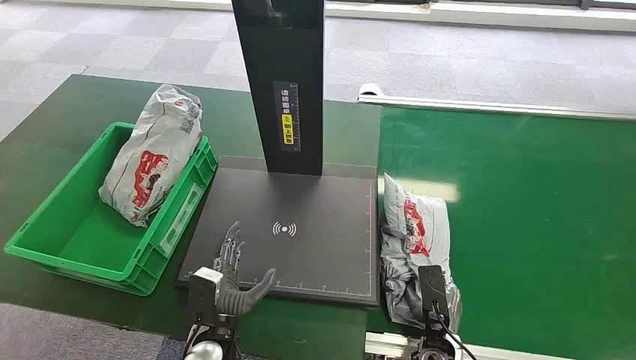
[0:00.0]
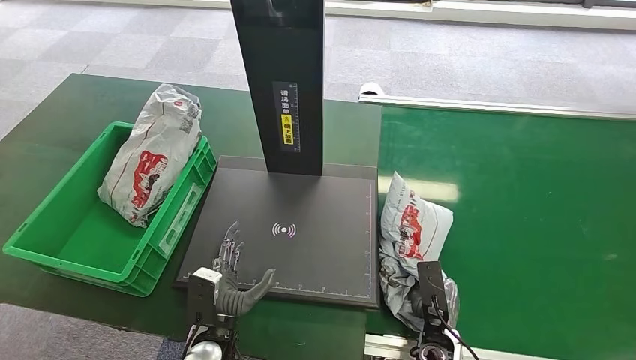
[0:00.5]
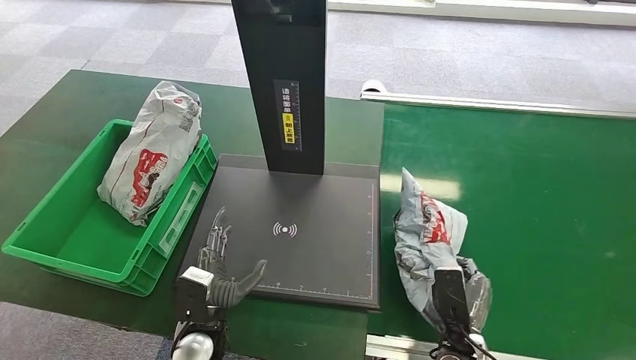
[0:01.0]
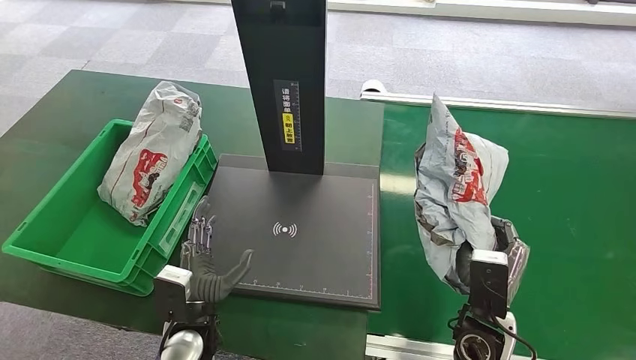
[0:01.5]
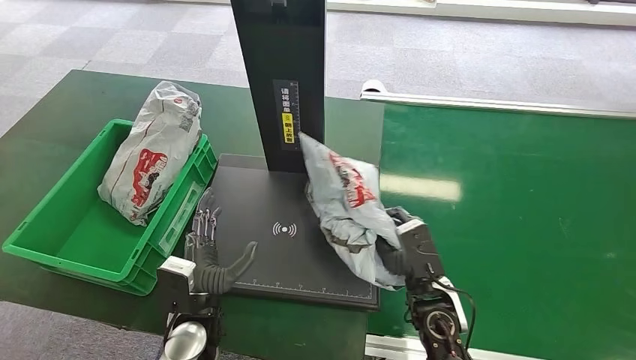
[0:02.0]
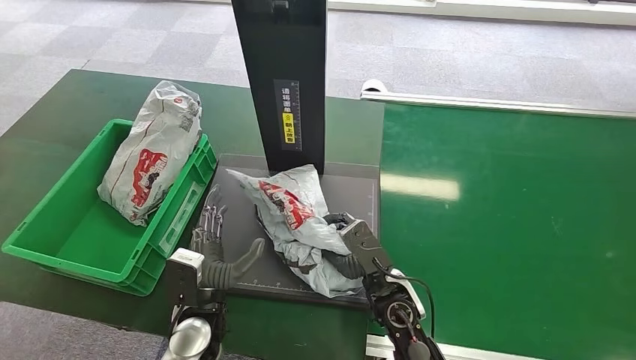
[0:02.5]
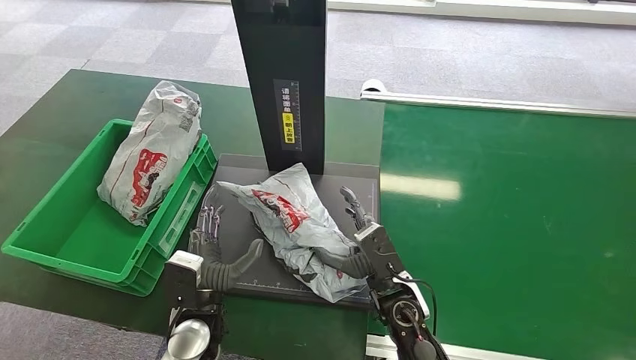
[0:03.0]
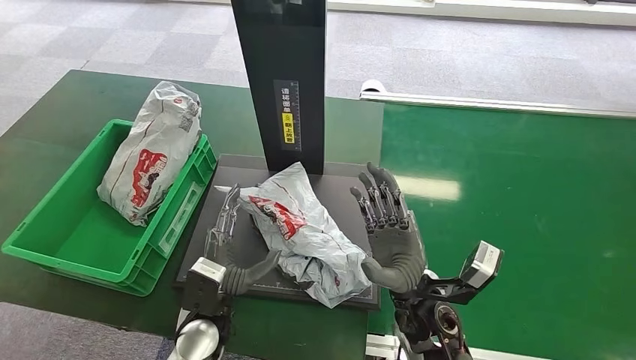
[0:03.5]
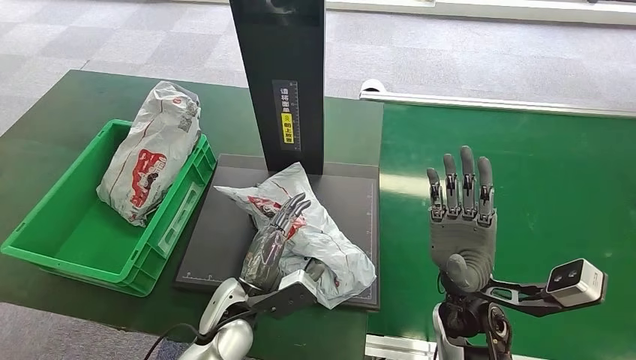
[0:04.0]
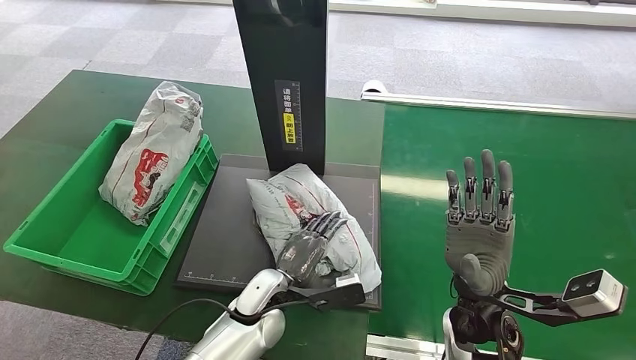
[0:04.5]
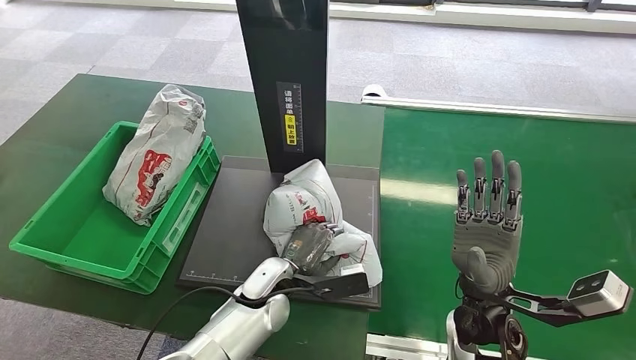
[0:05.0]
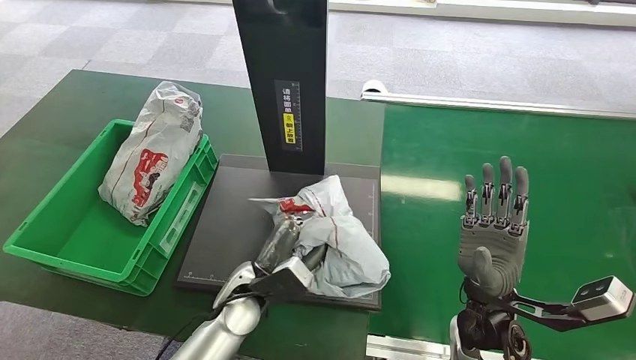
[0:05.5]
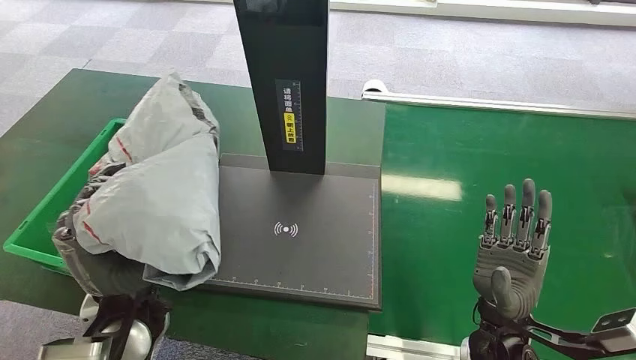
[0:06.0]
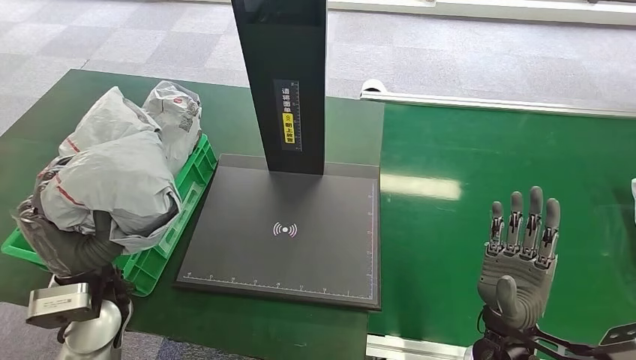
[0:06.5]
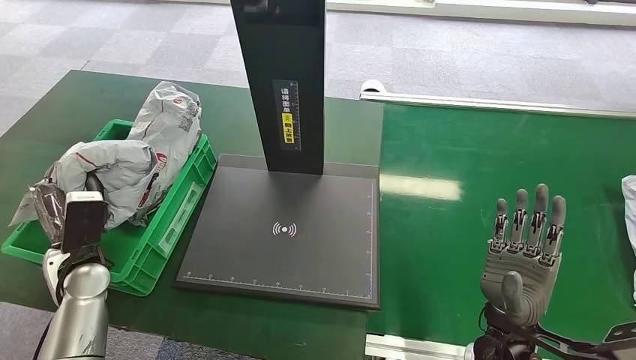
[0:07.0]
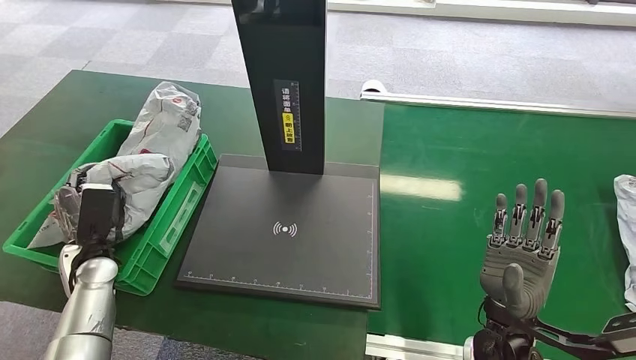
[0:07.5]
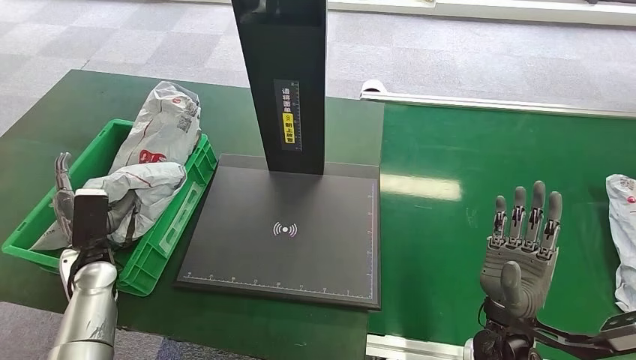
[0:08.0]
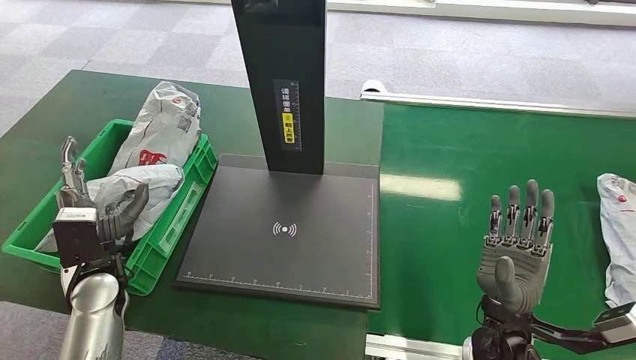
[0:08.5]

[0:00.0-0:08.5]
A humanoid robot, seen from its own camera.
Step, 0:00.0 to 0:01.5: Pick up the package from the conveyor belt.
Step, 0:02.0 to 0:03.5: Place the package onto the inbound machine.
Step, 0:04.0 to 0:06.0: Pick up the package from the inbound machine.
Step, 0:06.5 to 0:08.5: Place the package into the parcel locker.
0:02.0 to 0:04.0: The left hand travels to the right by about 5 cm. The right hand shifts about 5 cm upward, and travels to the left and back again, roughly 5 cm each way.
0:06.5 to 0:08.5: The left hand shifts approximately 5 cm downward.

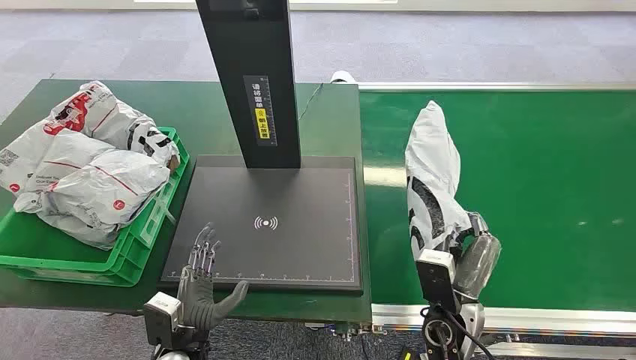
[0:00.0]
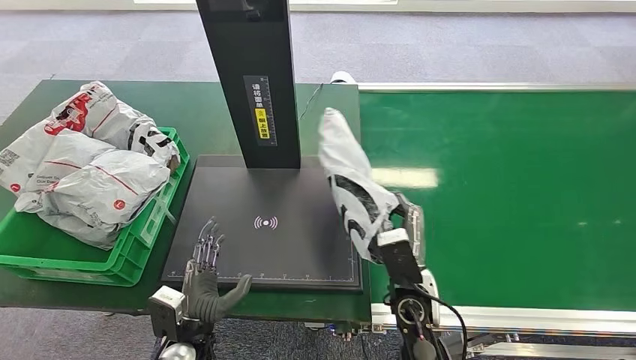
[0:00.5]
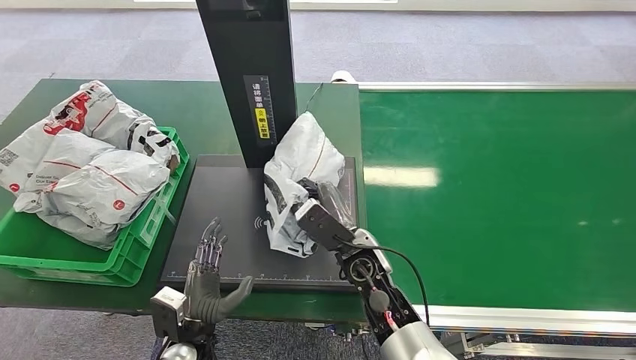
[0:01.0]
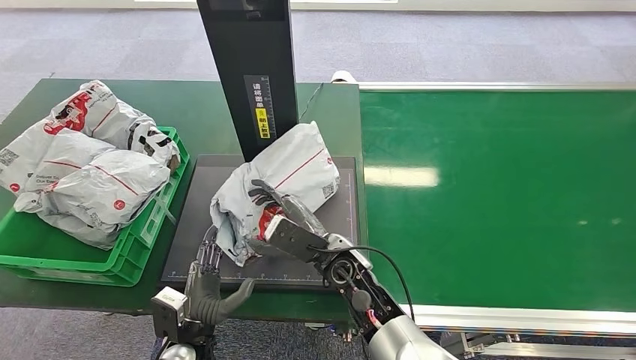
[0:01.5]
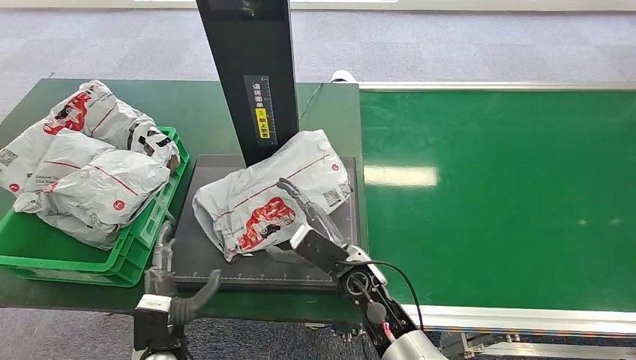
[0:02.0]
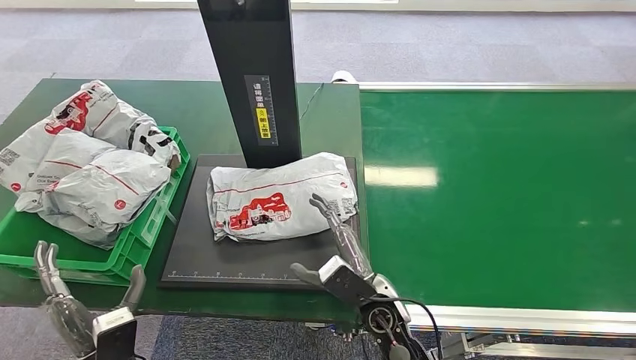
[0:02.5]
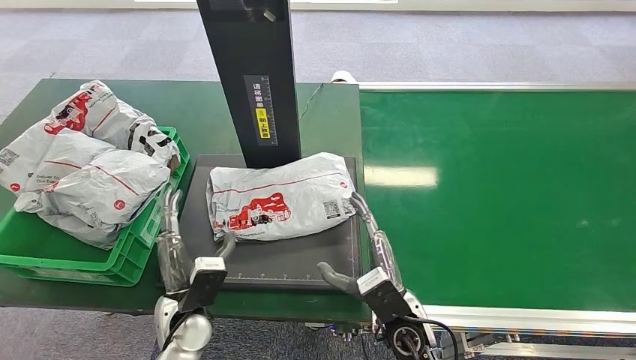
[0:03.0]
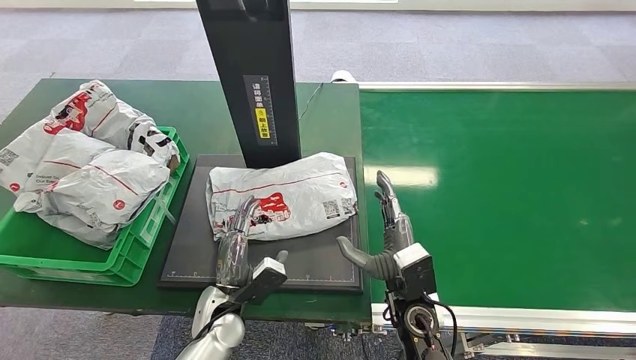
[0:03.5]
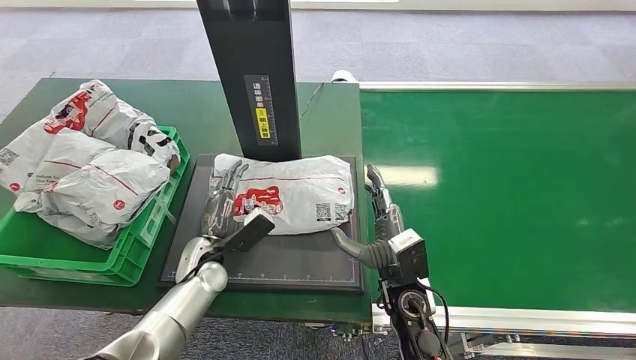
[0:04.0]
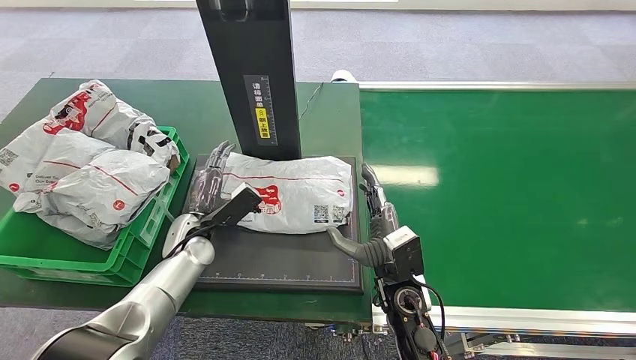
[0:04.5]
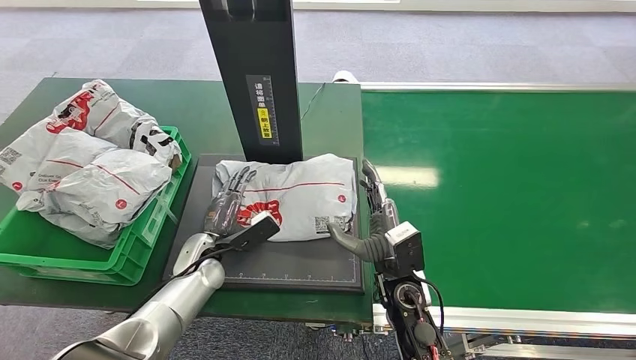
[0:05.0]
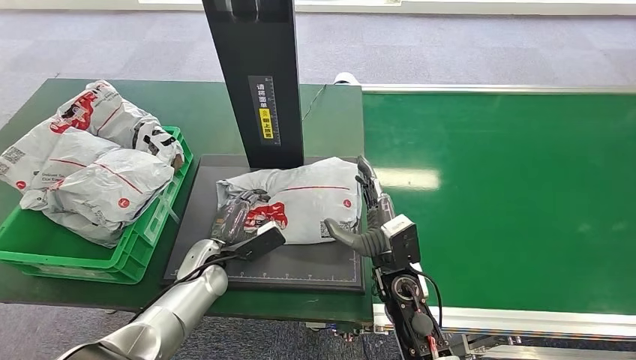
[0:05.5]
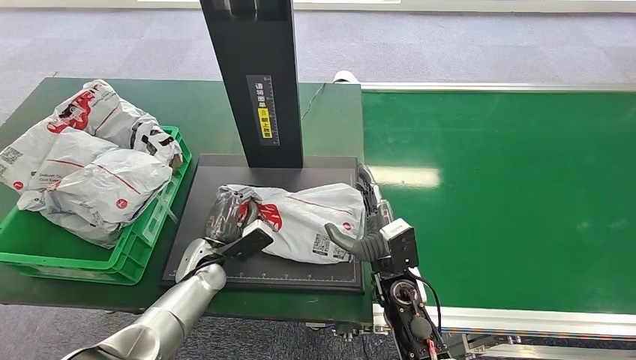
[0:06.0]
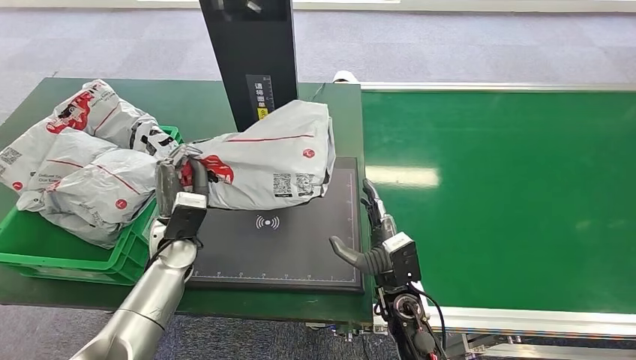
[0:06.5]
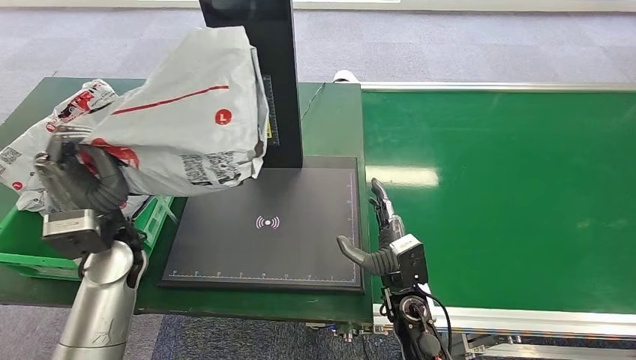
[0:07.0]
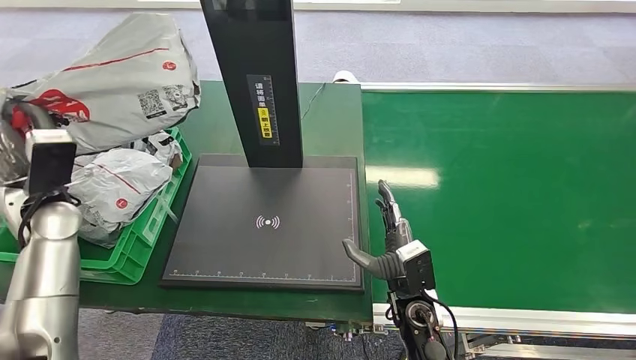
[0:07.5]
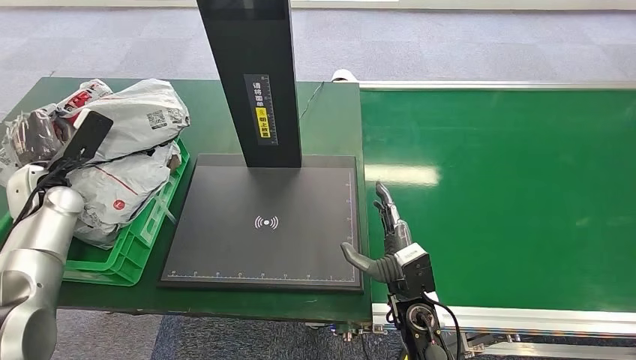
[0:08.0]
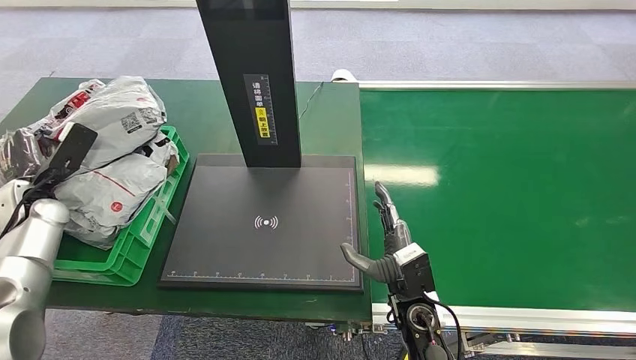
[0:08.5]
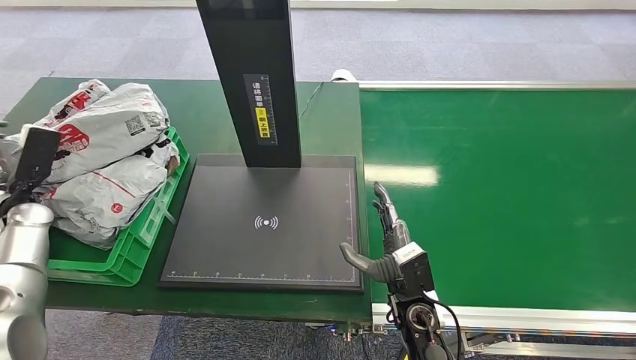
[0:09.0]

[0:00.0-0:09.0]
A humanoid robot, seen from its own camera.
0:02.0 to 0:04.5: The right hand shifts some 5 cm to the right, and reaches about 10 cm backward, then returns; the left hand goes some 20 cm forward.
